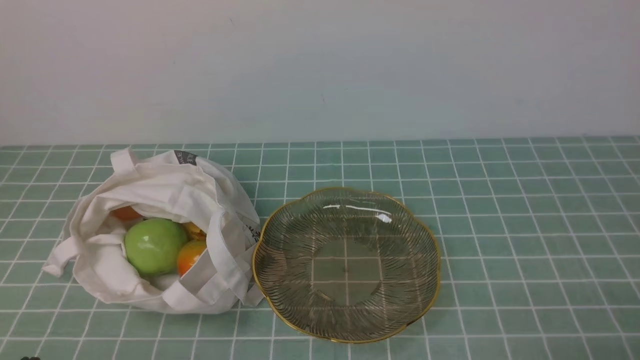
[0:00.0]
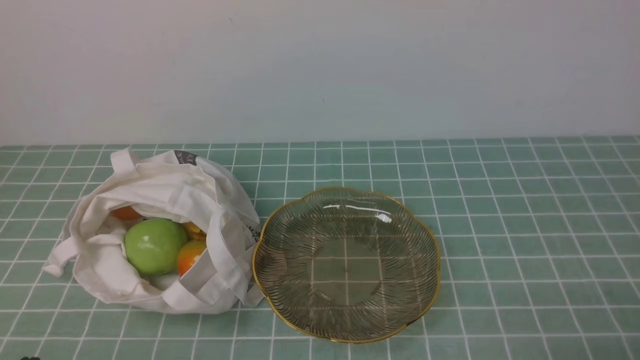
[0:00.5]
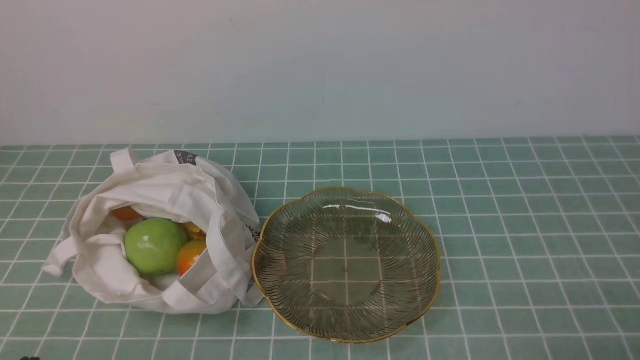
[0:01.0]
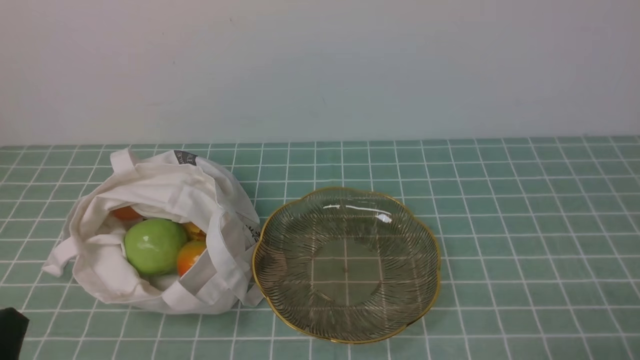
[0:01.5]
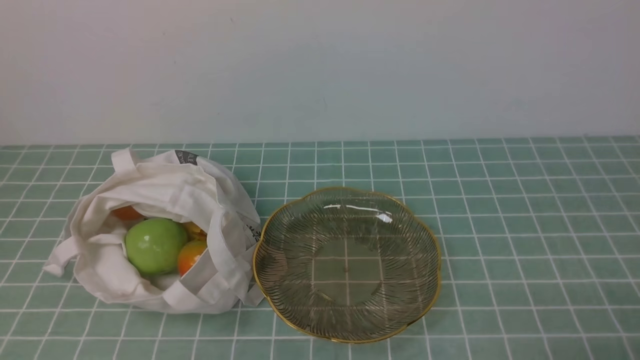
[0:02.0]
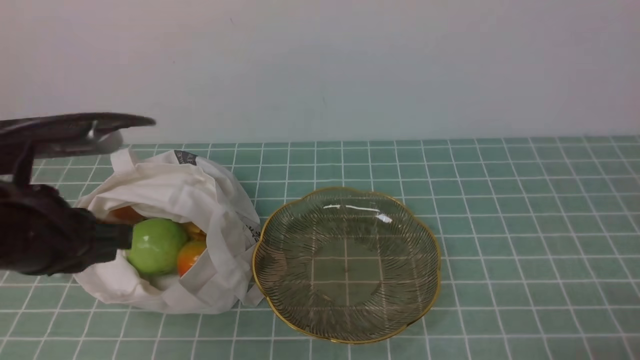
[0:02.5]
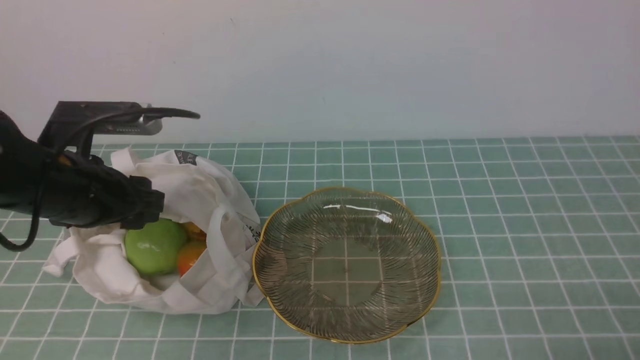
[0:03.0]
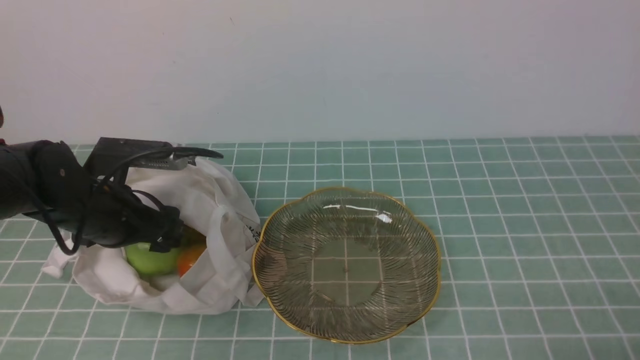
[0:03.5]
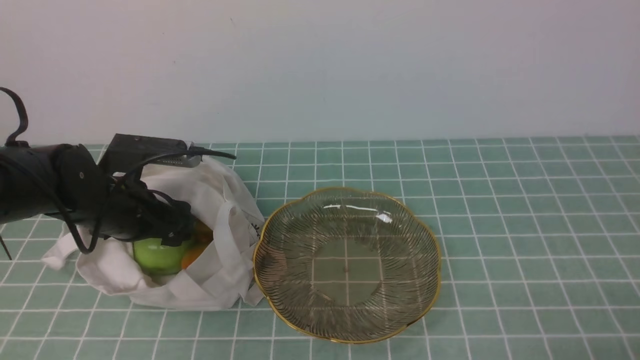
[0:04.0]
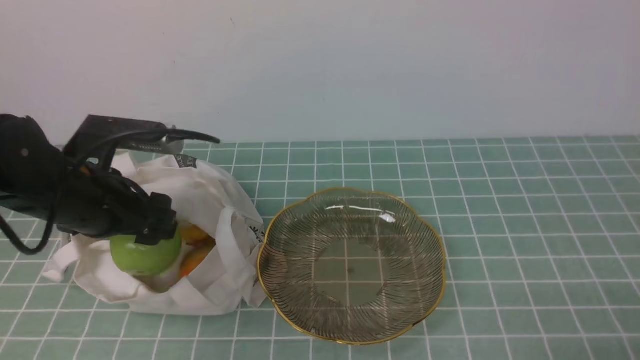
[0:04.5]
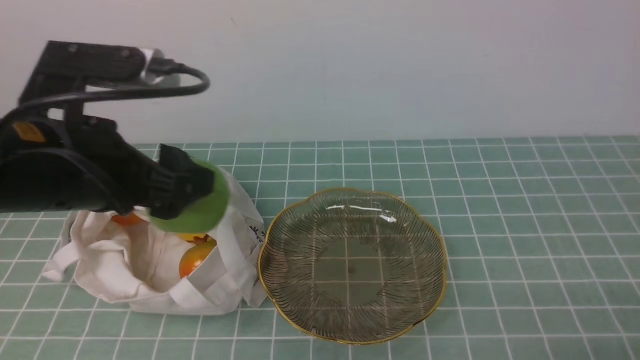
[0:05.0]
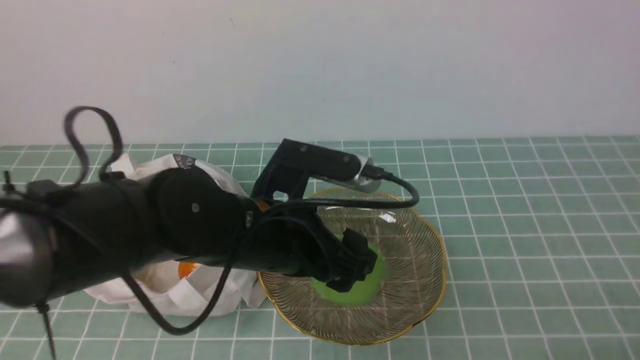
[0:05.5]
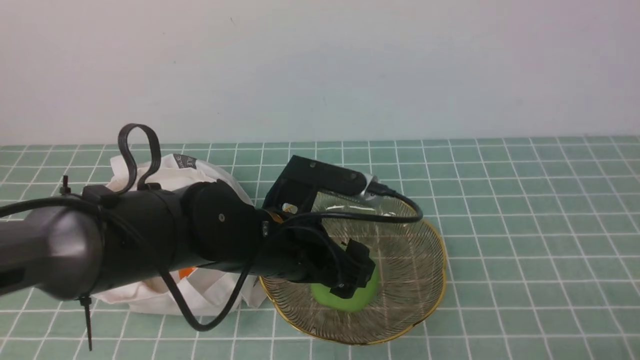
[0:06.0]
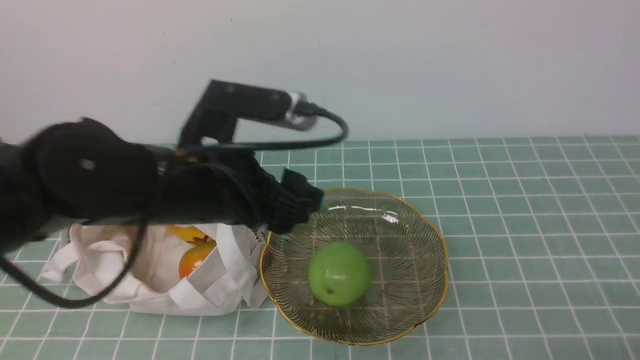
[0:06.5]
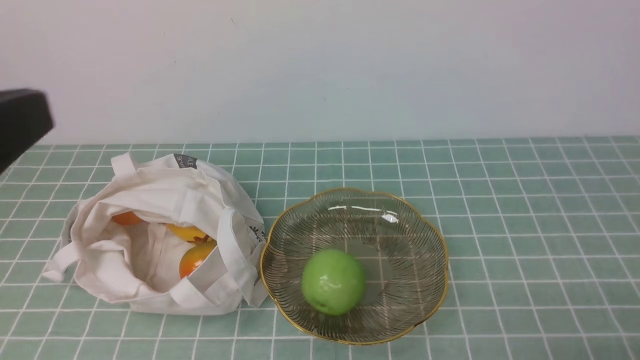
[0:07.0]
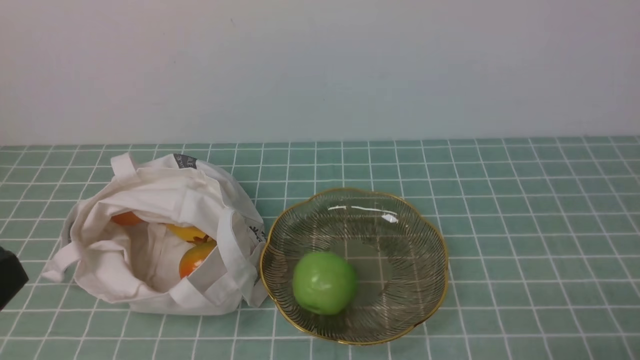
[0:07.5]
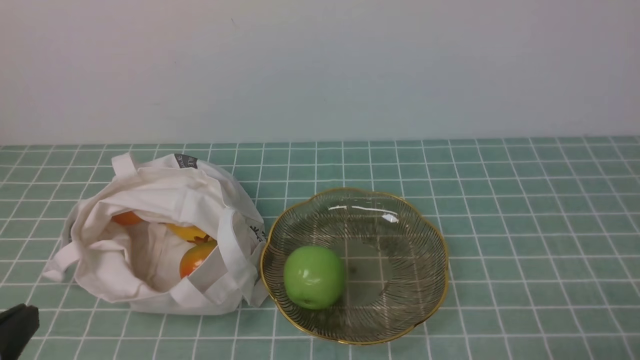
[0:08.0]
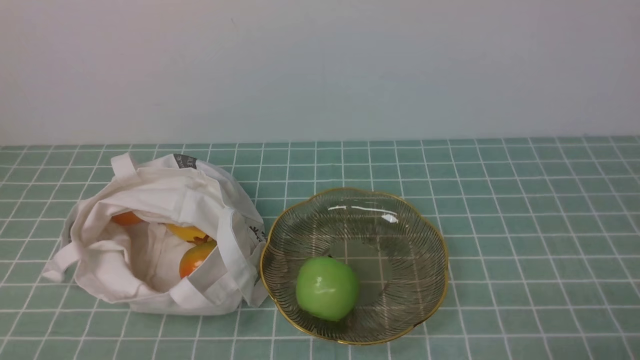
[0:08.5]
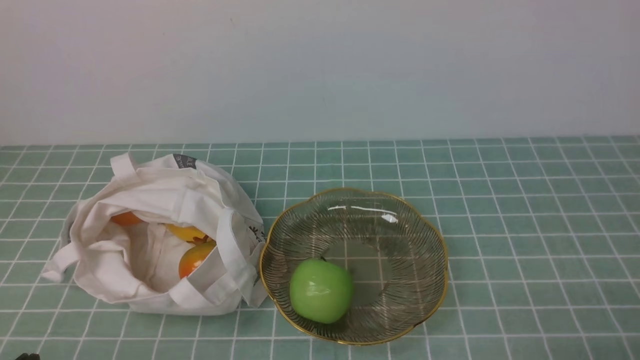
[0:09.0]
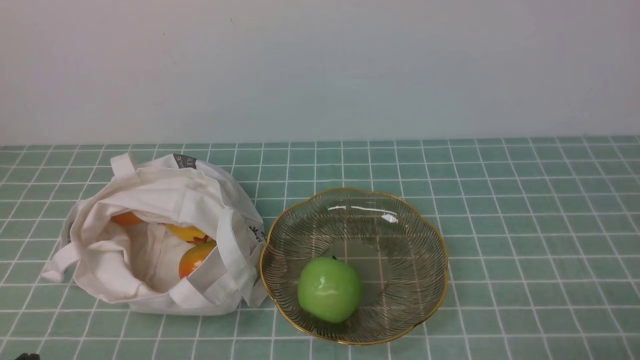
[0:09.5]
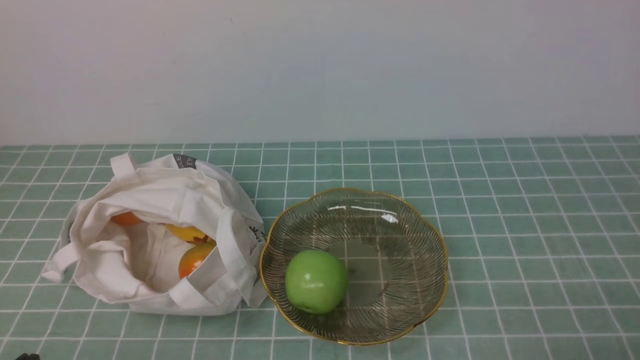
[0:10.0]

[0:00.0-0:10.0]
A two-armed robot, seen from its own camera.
Step, 0:00.0 to 0:04.5: use the left arm to grab an apple from the bag.
Step, 0:05.0 to 0:06.0: use the left arm to put the apple into the empty plate on the right.
0:02.0 to 0:04.0: The left gripper shifts approximately 30 cm forward, and opens.
0:04.0 to 0:06.0: The left gripper moves to the right, approximately 20 cm.
0:06.0 to 0:08.0: The left gripper heads backward and to the left, covering roughly 30 cm, and closes its fingers.
0:08.0 to 0:10.0: The left gripper heads downward, covering roughly 10 cm.

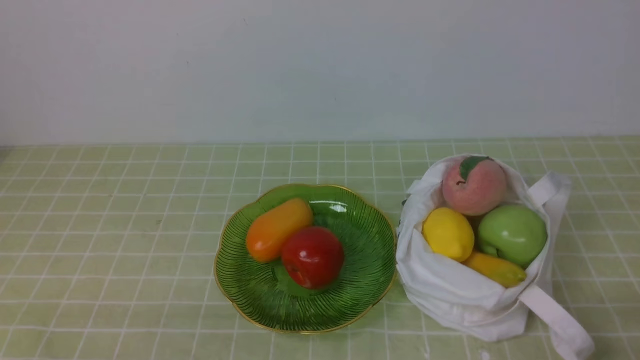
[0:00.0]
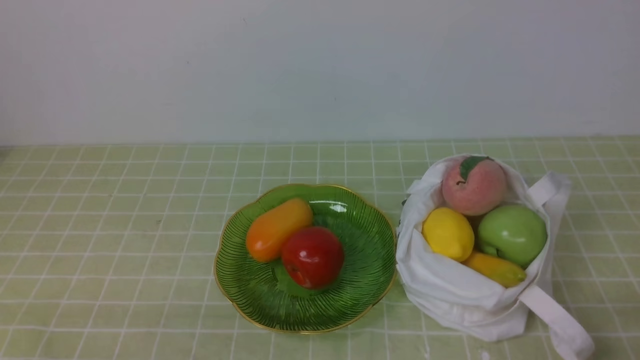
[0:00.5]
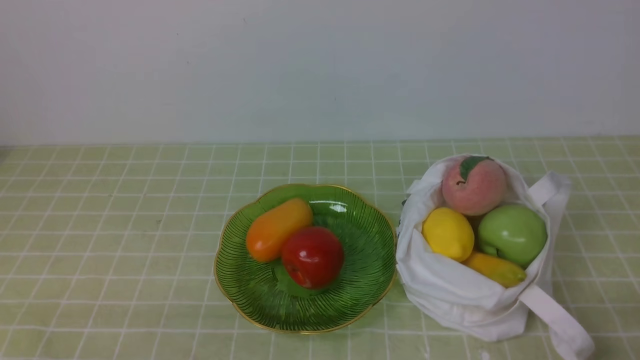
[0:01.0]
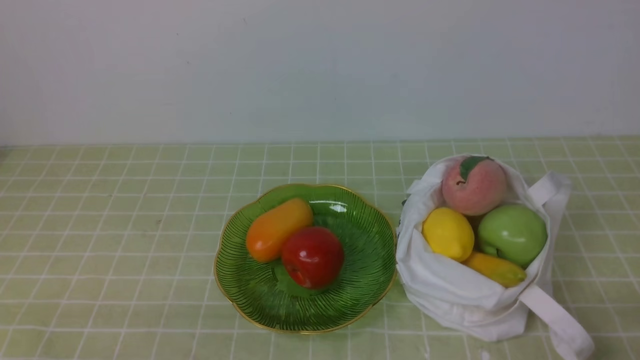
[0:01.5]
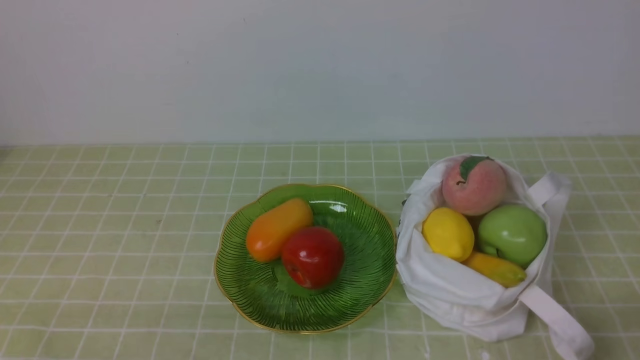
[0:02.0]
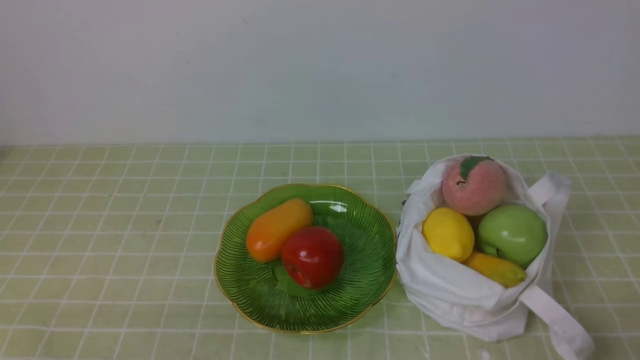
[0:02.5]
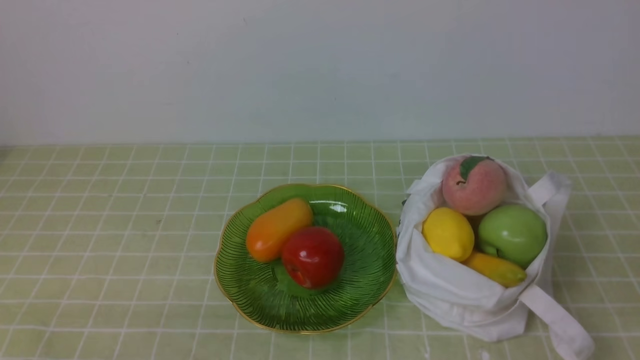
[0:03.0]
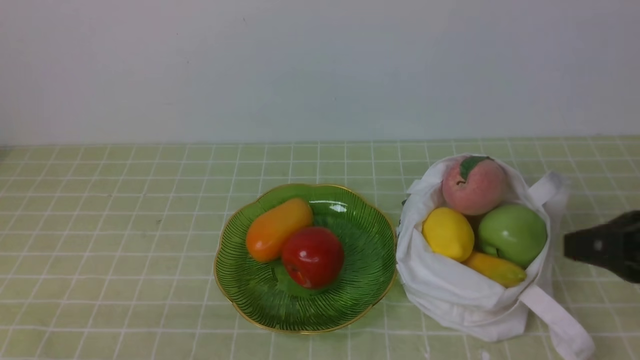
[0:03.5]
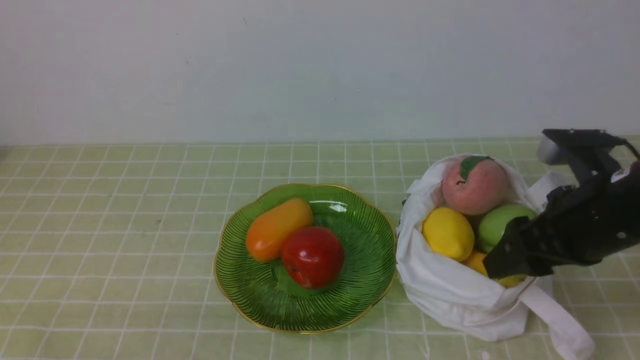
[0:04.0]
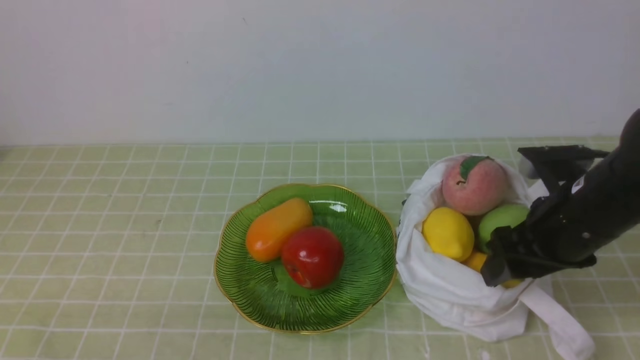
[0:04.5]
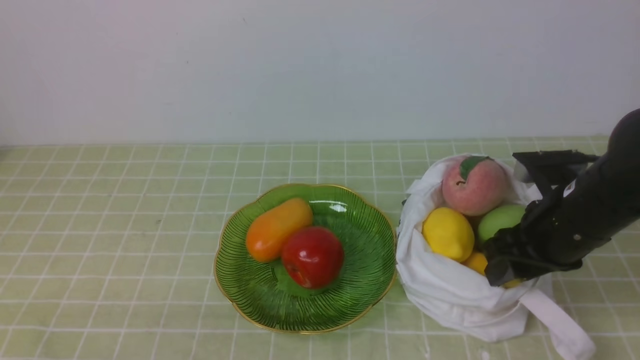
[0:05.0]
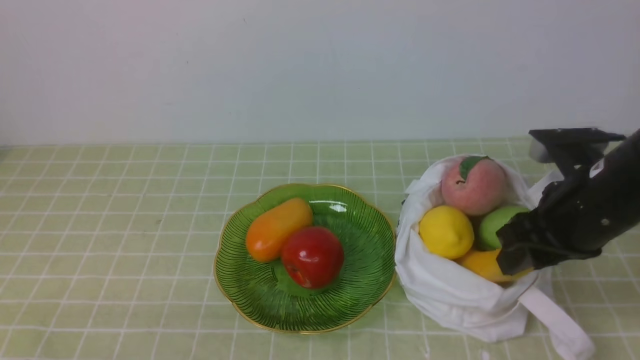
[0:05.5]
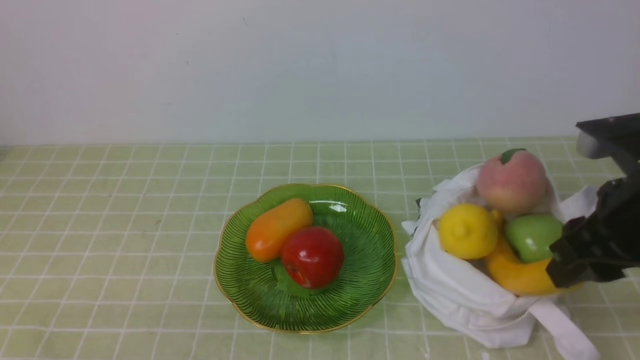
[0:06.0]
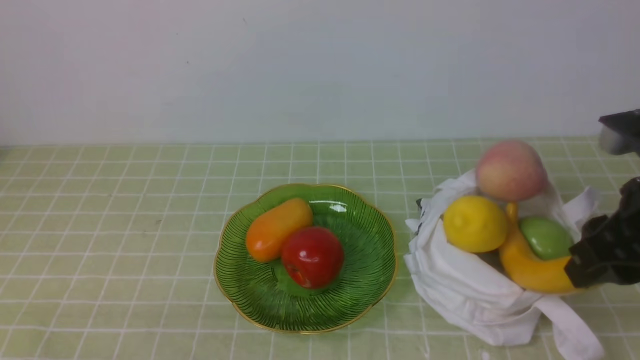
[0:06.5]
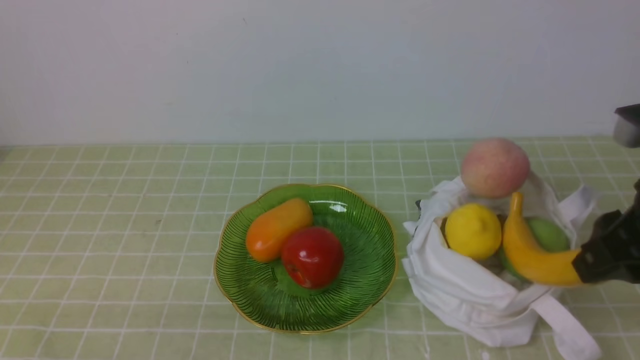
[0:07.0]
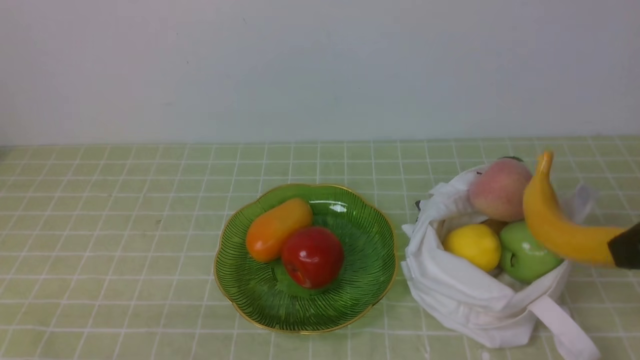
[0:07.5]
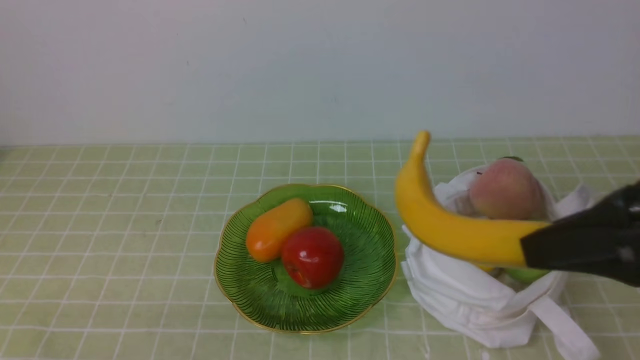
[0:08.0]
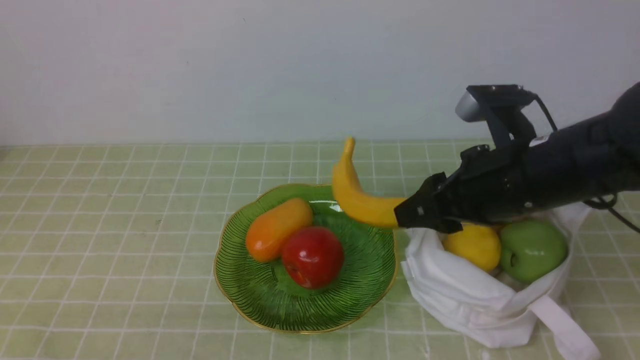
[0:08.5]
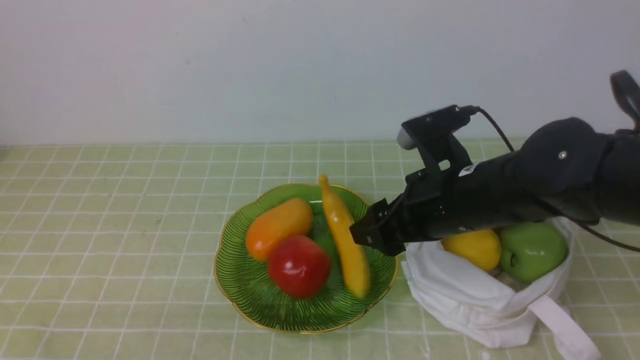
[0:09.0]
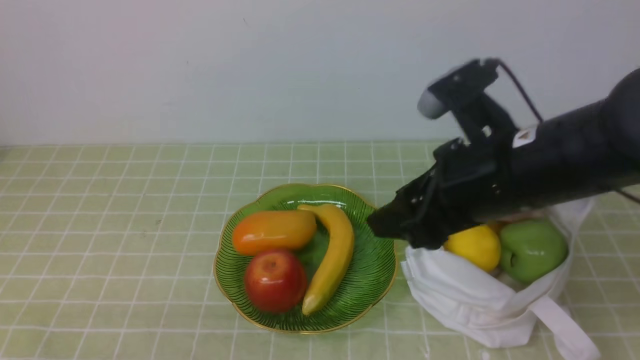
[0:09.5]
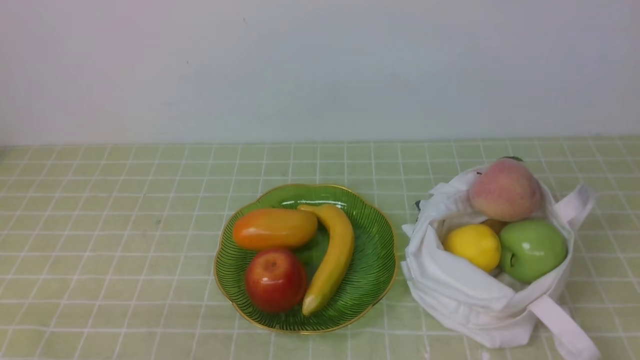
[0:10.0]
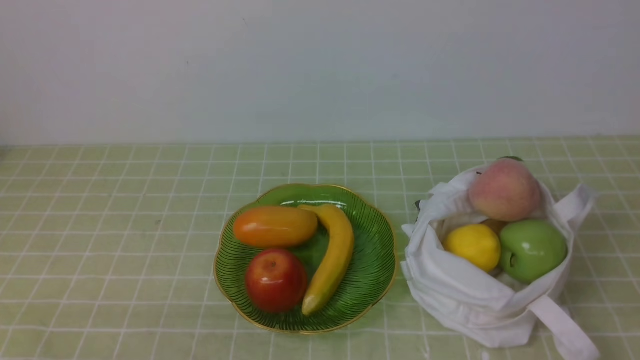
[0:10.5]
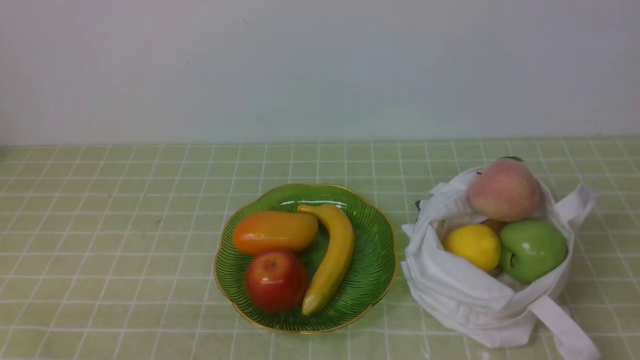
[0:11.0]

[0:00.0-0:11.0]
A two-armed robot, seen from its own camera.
Step, 0:00.0 to 0:07.0: use the right arm to grab a banana from the bag.
Step, 0:07.5 to 0:09.5: use the right arm to put the banana into the empty plate on the right.
0:02.0 to 0:03.5: The right gripper travels forward and upward by some 15 cm.
0:03.5 to 0:05.5: The right gripper goes about 10 cm forward, and opens its fingers.
0:05.5 to 0:07.5: The right gripper goes approximately 15 cm upward and backward.
0:07.5 to 0:09.0: The right gripper heads to the left, forward and downward, covering roughly 25 cm, and opens.
0:09.0 to 0:11.0: The right gripper travels backward and to the right by roughly 30 cm, and closes.
